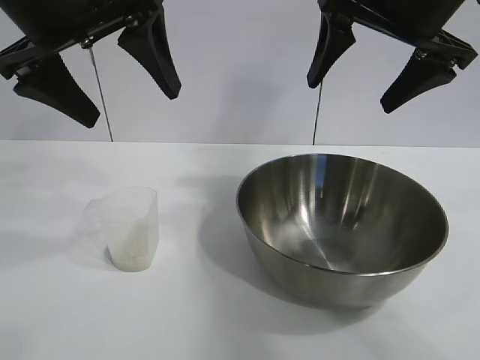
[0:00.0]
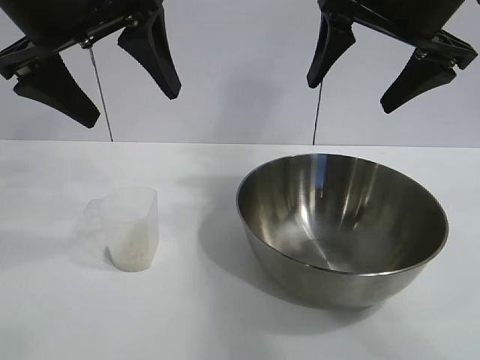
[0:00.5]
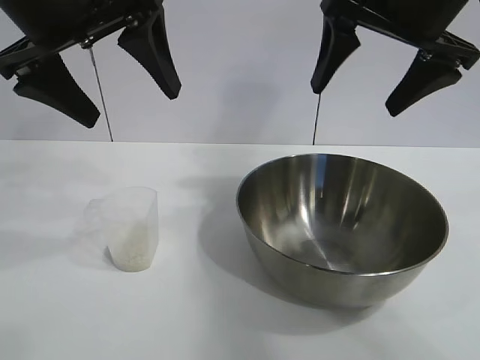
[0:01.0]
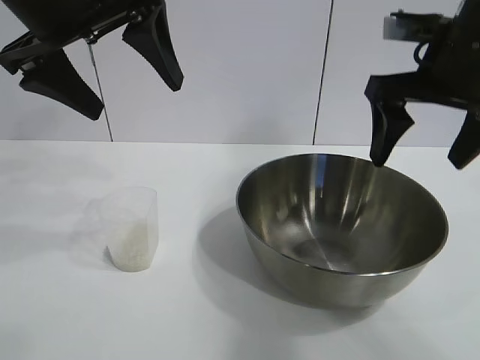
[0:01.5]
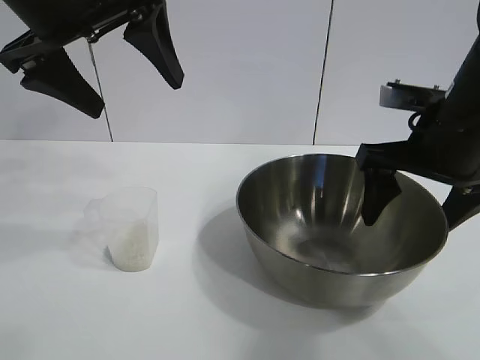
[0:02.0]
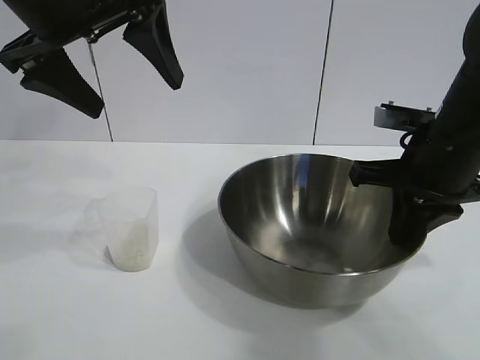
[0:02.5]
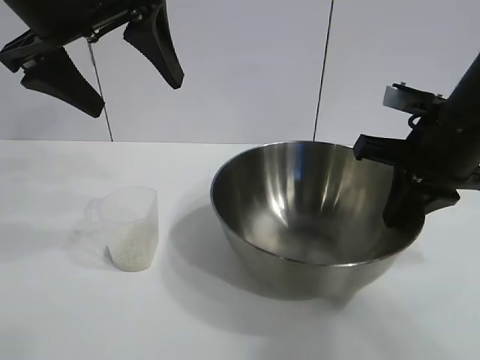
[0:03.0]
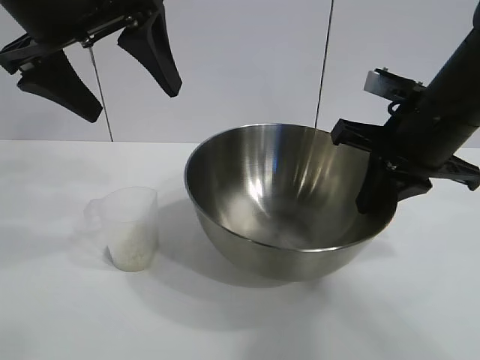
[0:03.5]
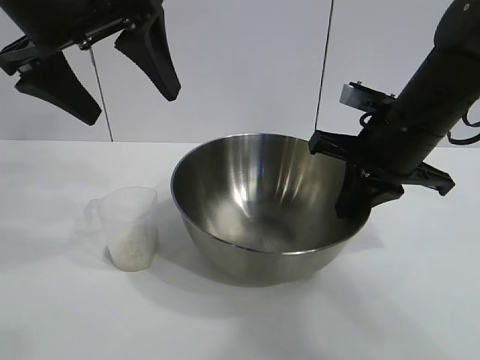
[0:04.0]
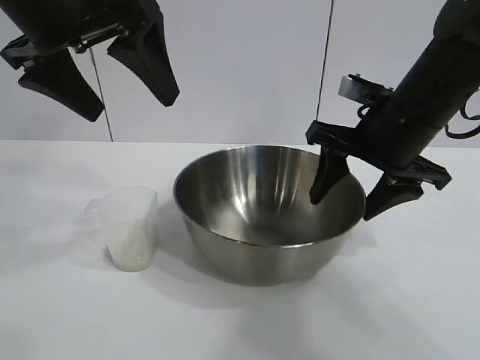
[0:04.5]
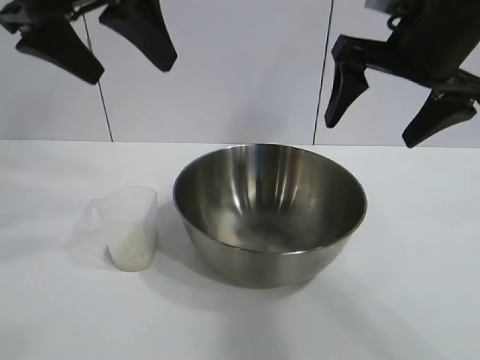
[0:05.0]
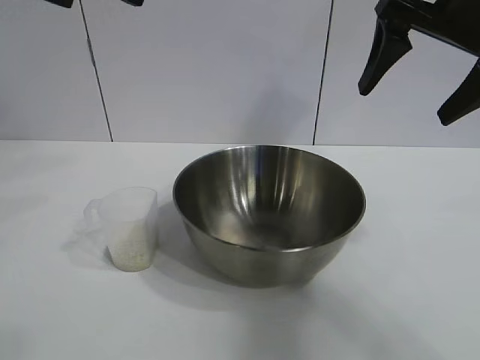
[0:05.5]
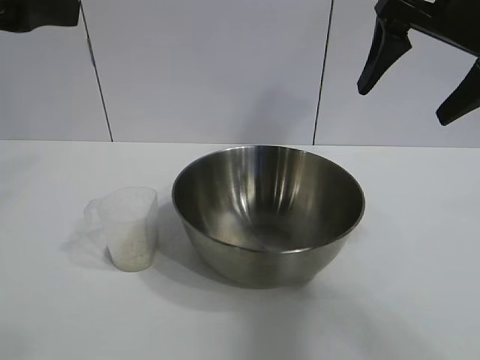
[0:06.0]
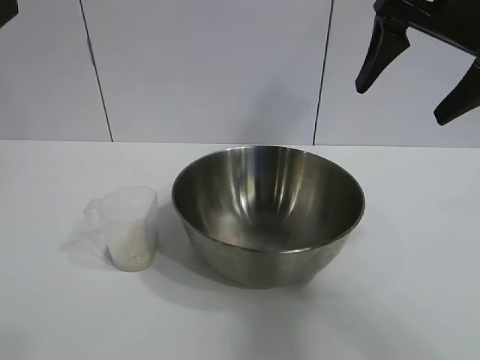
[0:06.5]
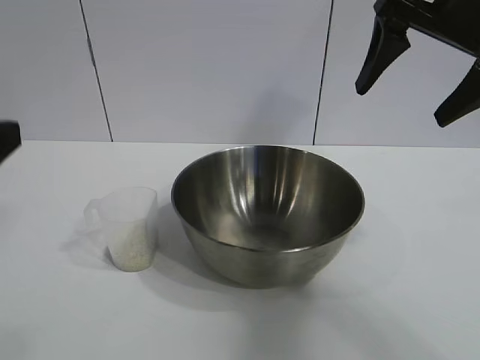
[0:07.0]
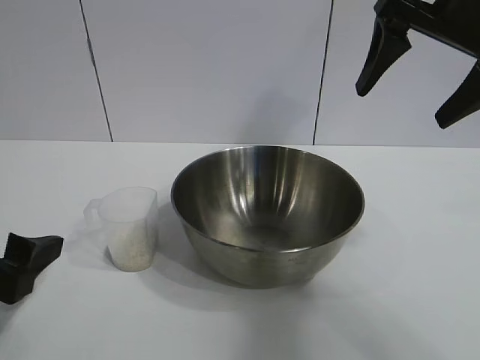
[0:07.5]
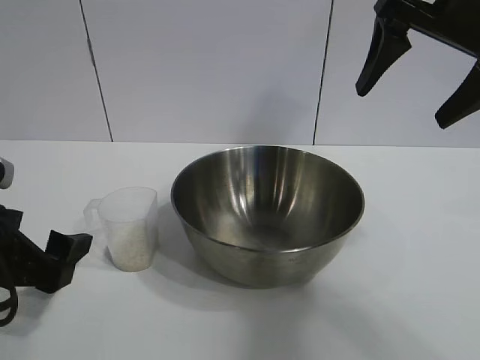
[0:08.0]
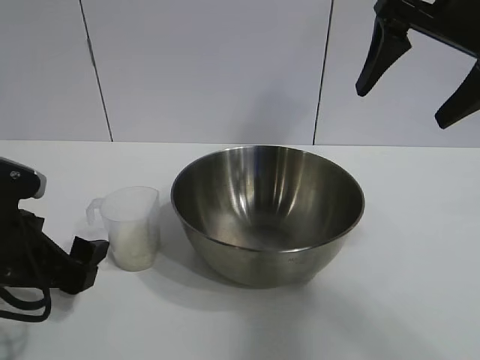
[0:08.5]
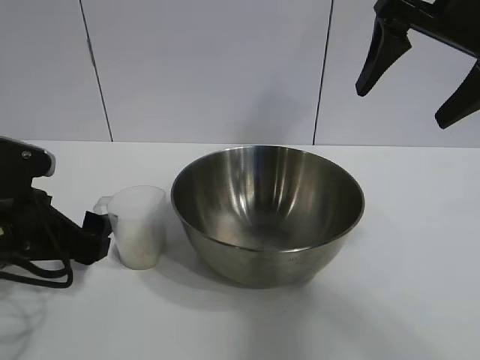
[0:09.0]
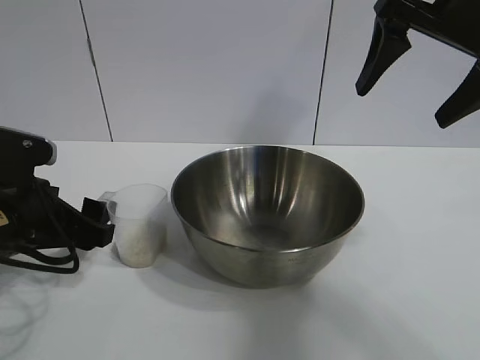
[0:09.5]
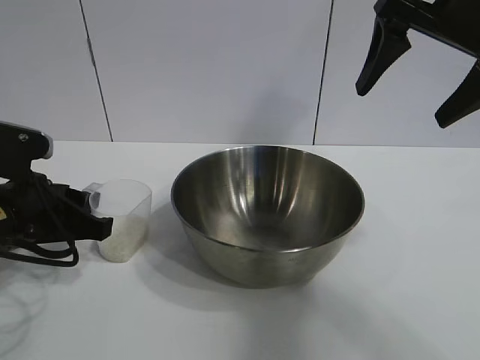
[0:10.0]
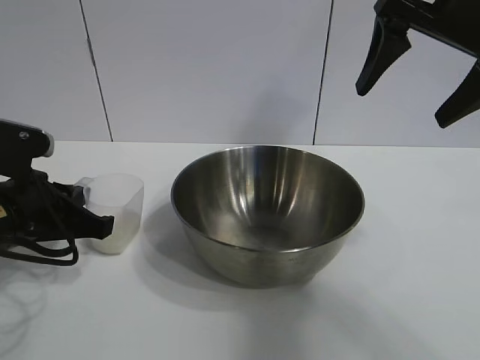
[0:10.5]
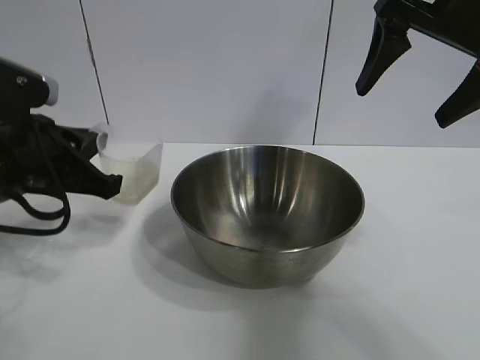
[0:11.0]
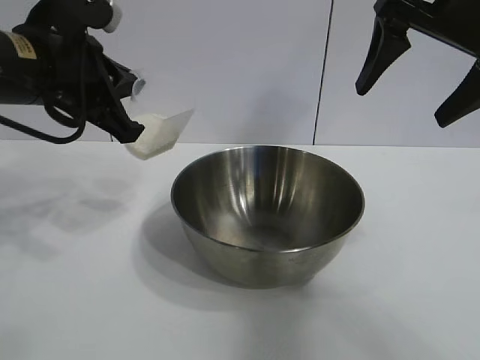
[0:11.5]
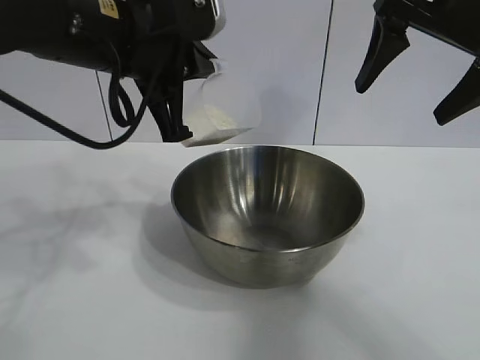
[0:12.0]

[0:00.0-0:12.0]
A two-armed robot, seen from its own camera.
Task of the whole recording: the right gripper grasp the rice container and place it in the center of the table, the left gripper grasp the rice scoop and pour the rice into the rice container.
Step, 0:01.0 to 0:04.0: Move the bowl in the center of view with right gripper.
Step, 0:04.5 to 0:10.0: Grasp the cup with rice in it with left gripper.

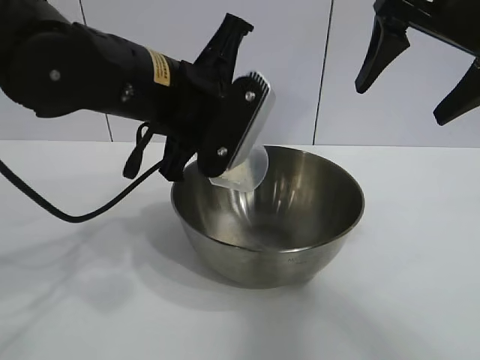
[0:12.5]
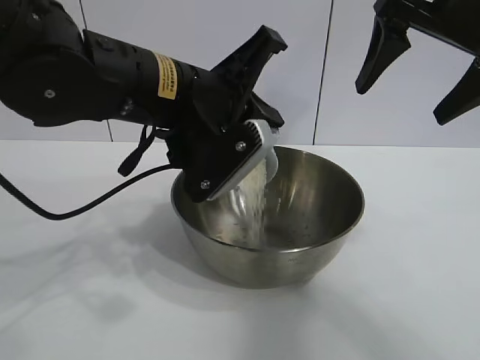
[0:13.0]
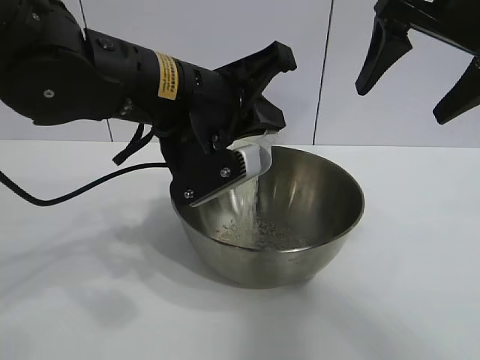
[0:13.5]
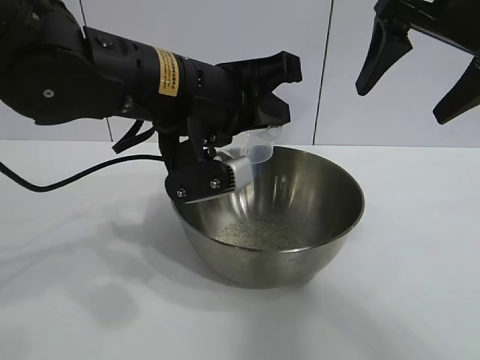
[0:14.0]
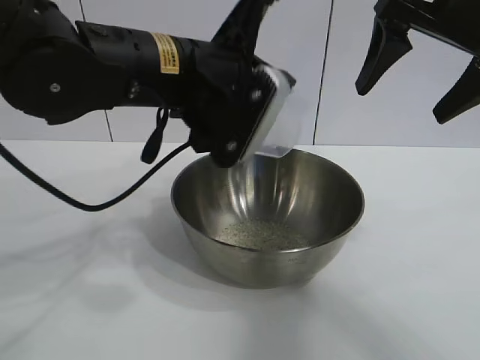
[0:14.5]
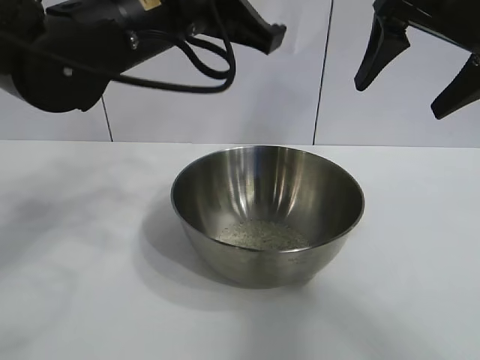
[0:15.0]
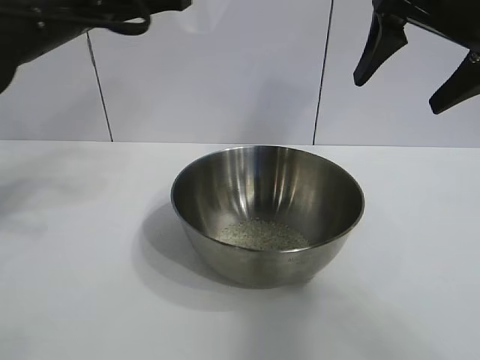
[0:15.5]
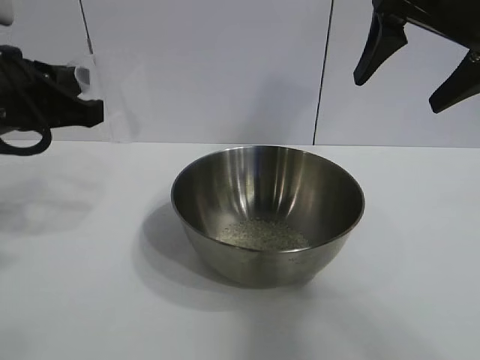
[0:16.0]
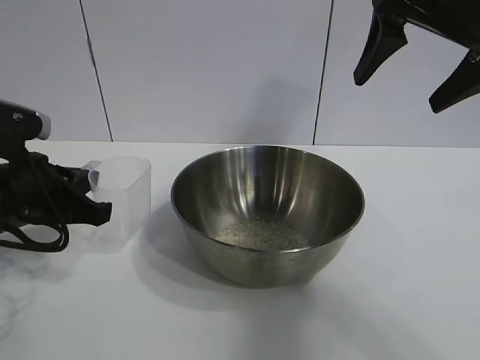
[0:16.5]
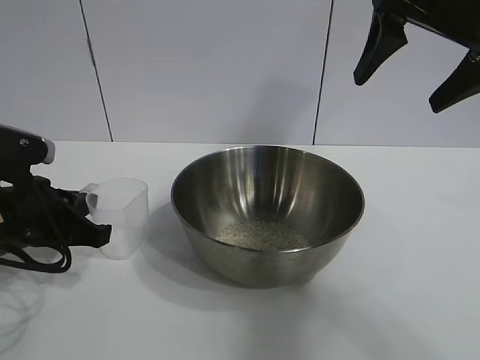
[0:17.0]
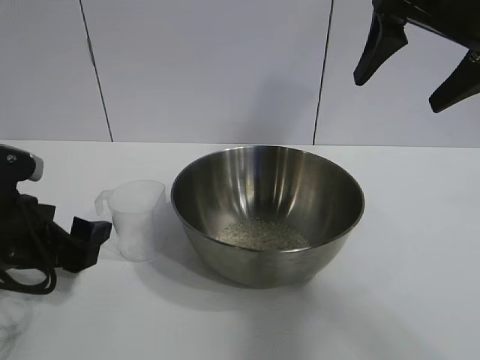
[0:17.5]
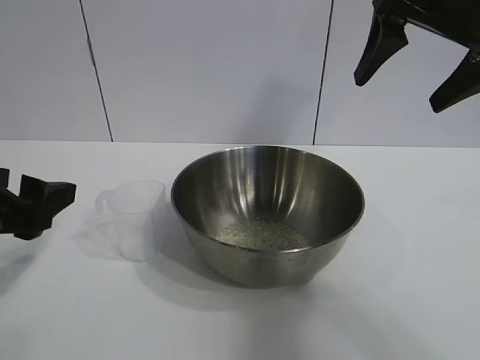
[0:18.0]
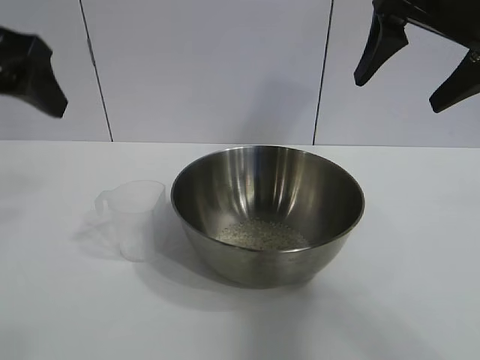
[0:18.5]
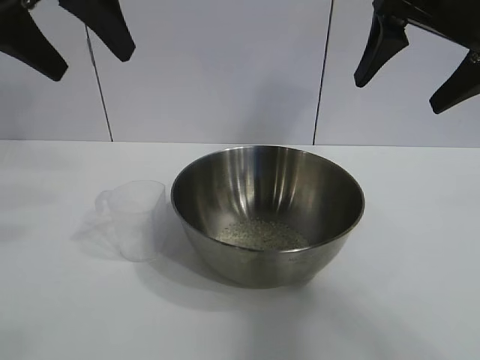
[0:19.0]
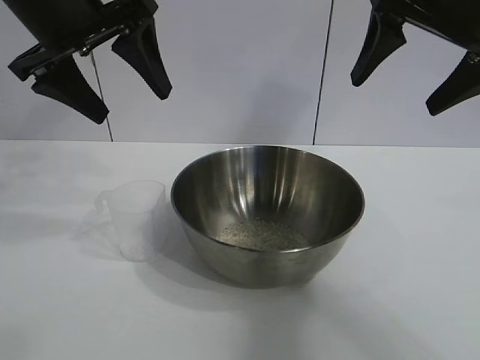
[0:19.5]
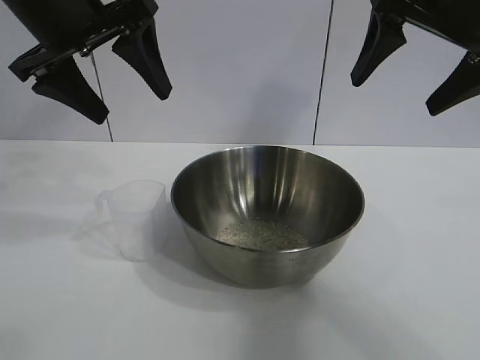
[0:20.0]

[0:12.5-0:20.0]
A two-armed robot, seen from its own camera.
Task of the whole recording: the right gripper grasp the rice container and place it in the center of the table, the left gripper grasp the rice scoop and pour the rice into the rice container.
Step, 0:14.5 to 0:17.0: Place the cup on the table with the left gripper.
